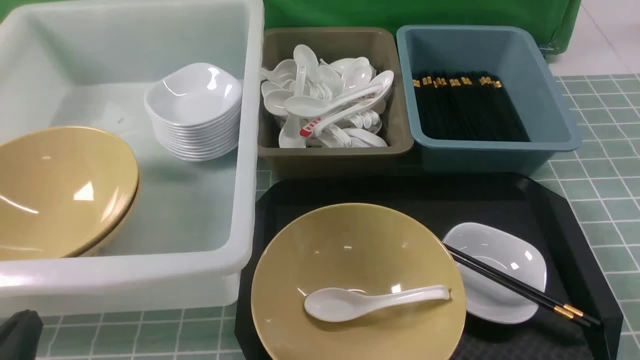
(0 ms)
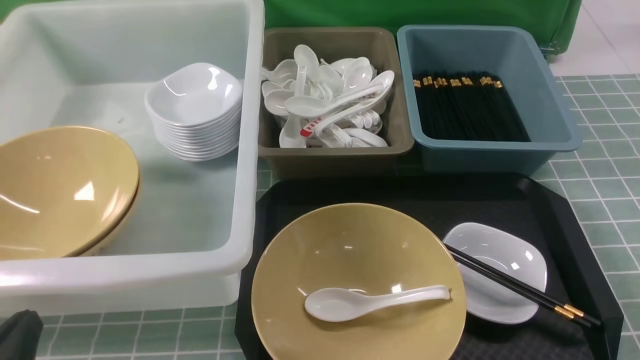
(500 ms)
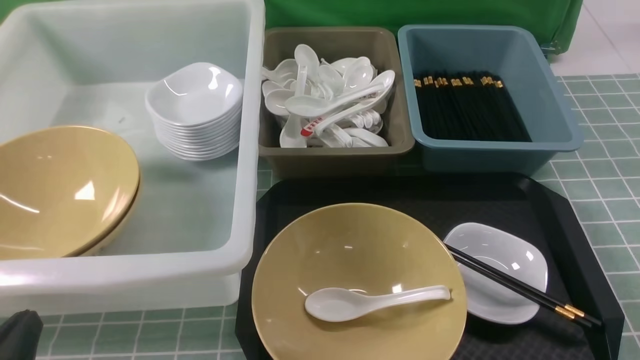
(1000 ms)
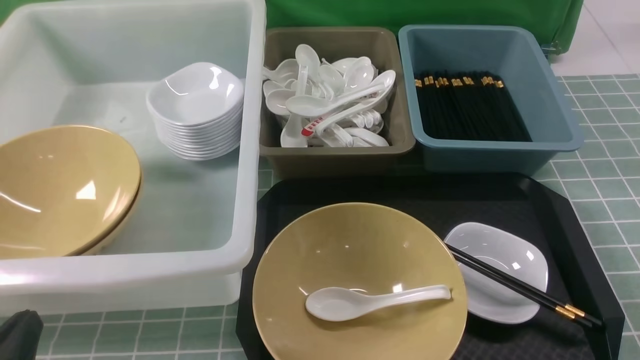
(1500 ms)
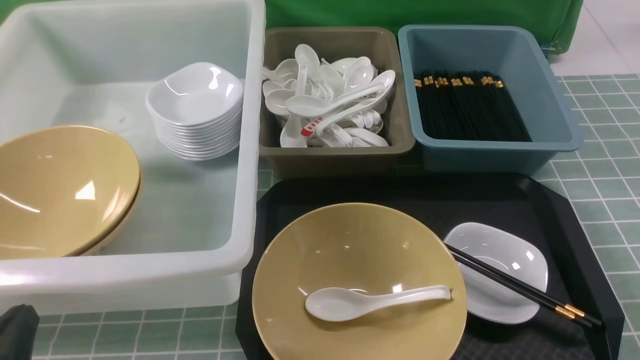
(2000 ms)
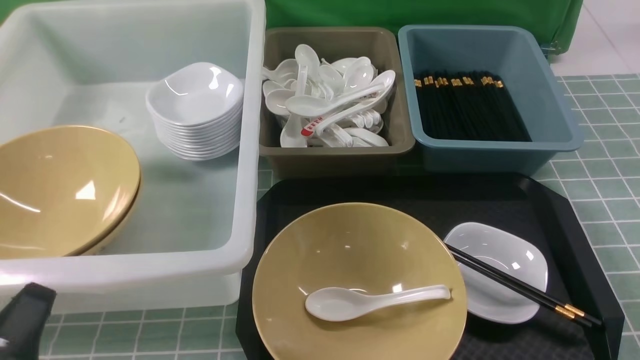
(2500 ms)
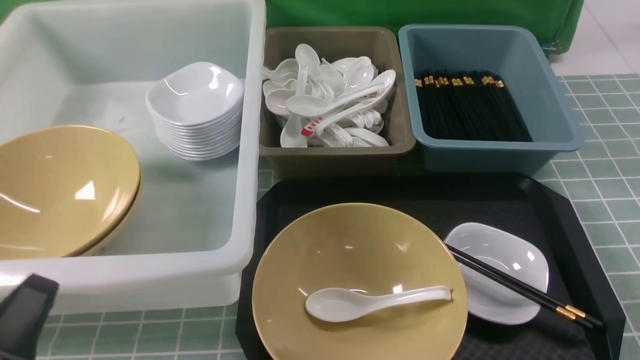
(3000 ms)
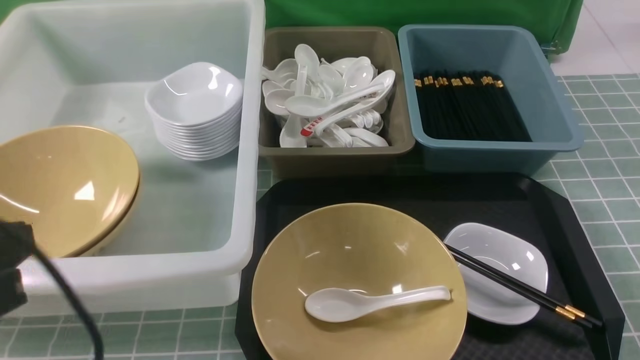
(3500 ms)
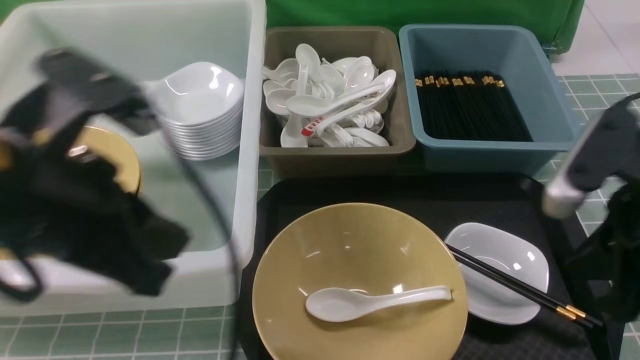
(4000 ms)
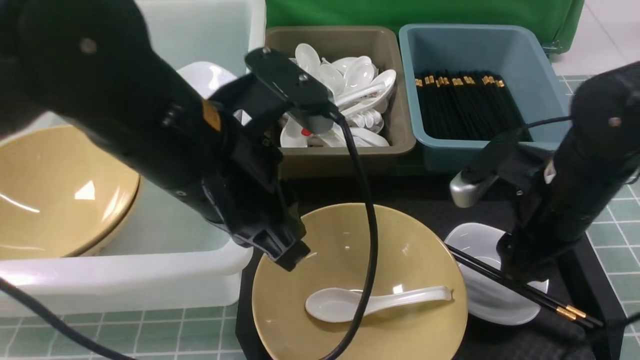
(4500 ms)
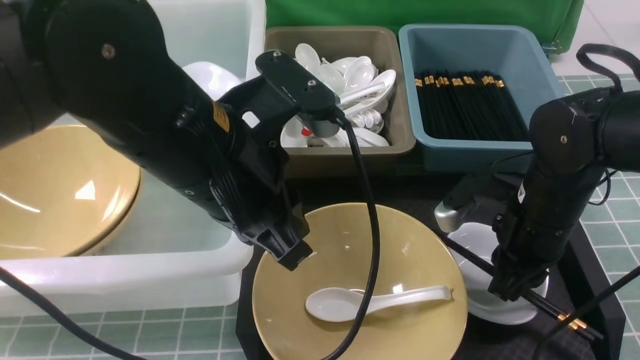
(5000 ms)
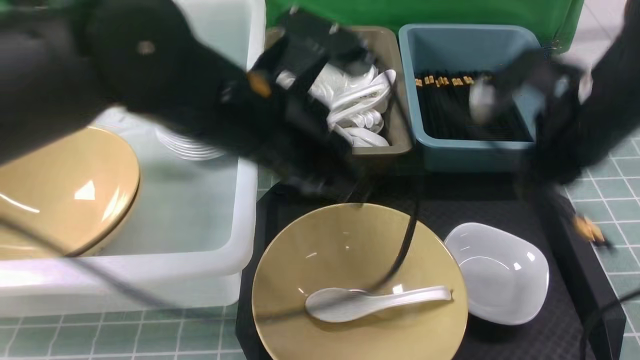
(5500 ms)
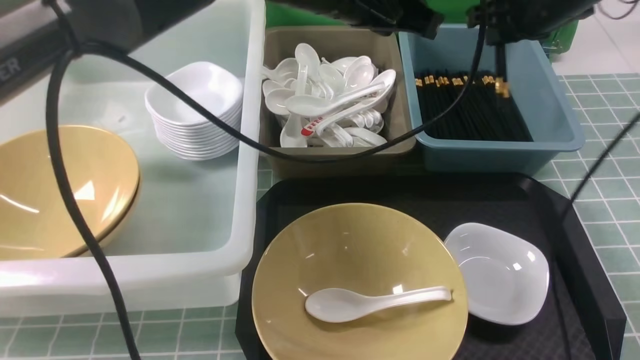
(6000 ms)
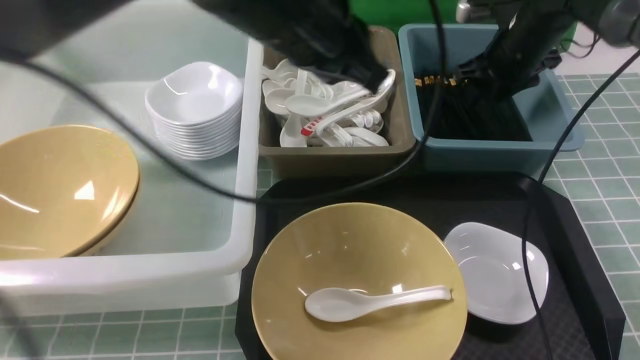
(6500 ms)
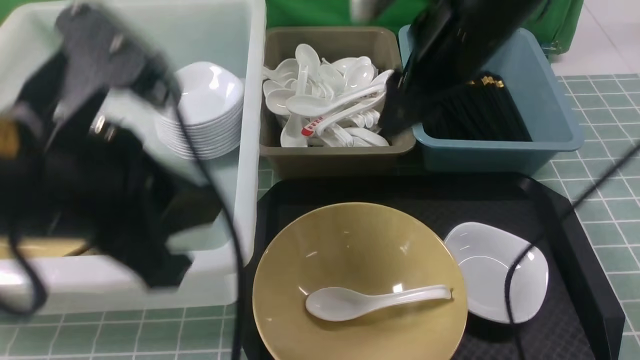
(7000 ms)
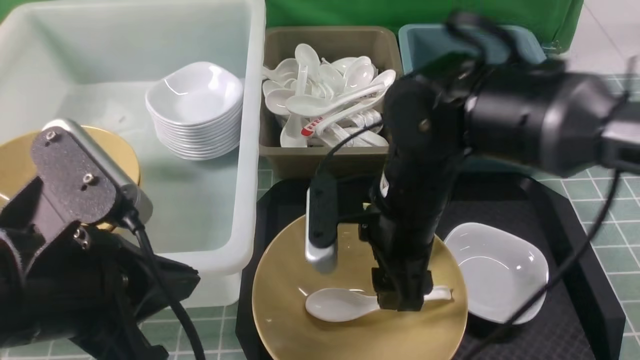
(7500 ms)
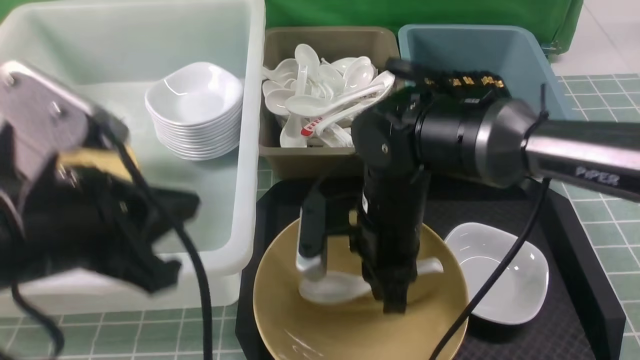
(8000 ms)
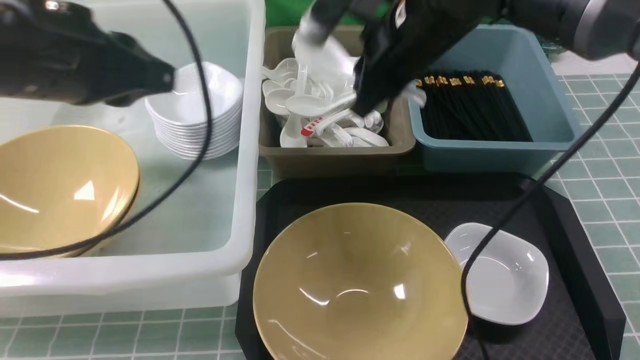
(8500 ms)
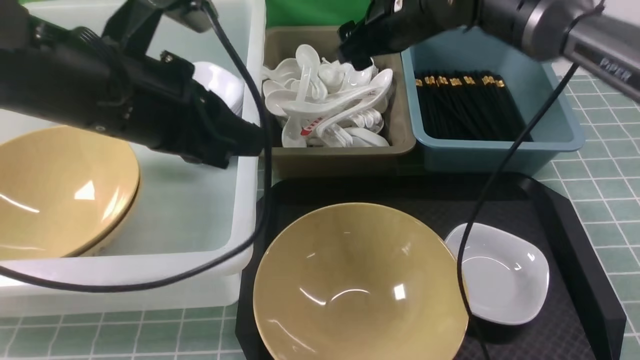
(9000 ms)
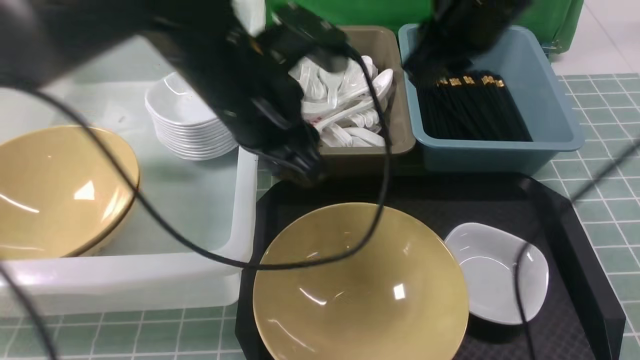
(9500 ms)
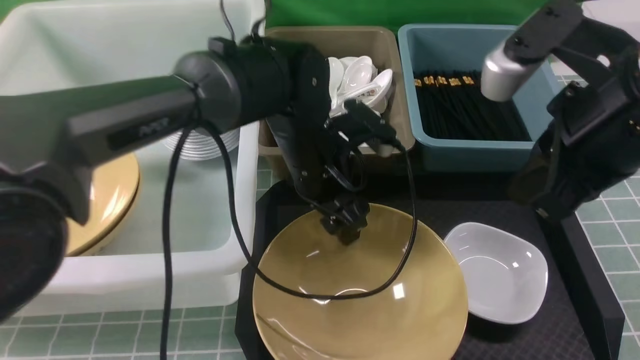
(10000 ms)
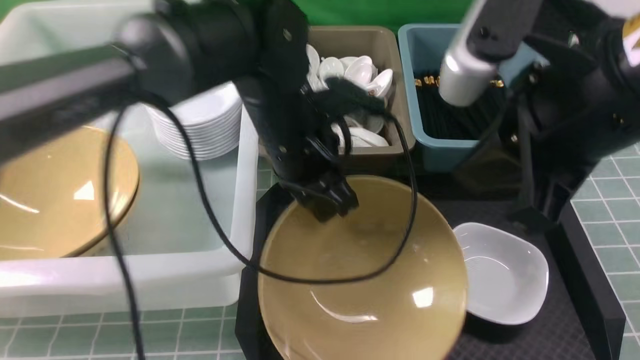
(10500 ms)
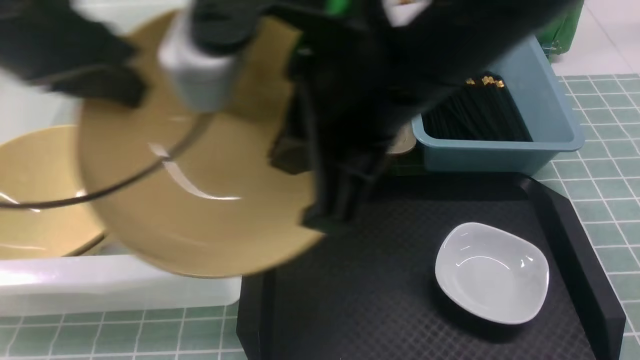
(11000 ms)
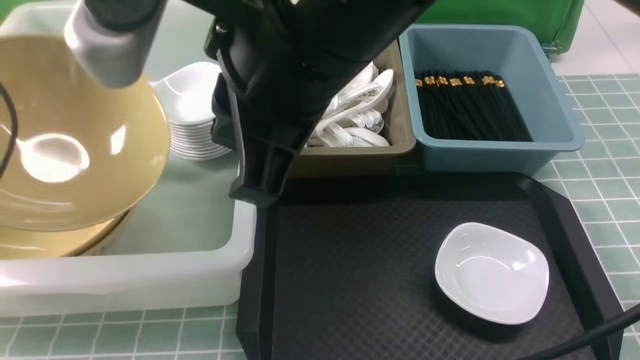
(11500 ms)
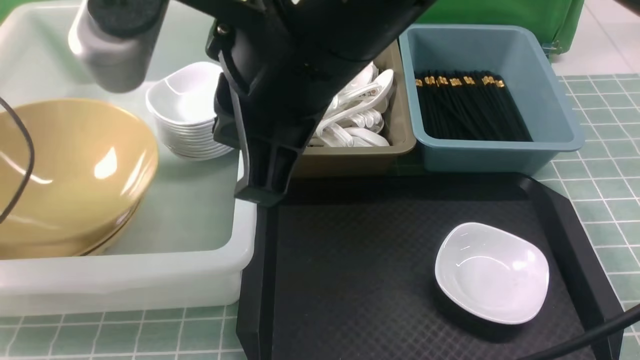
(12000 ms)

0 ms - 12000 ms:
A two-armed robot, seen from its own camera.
Task of the whole recording: on blue table put chopsticks spoon bowls plates into blue grey white boxes.
Step, 0 ms - 5000 ms: use the right arm to grab the chopsticks.
Step, 5500 ms - 6500 ms: use the right arm to put the chopsticks into the small storage box on the right.
Step, 7000 ms - 8000 ms: use the right arm to grab the soup spoon in the middle.
Step, 8500 ms - 9000 ms: use the right arm to put the soup spoon into the small storage box in the middle.
Step, 9500 ms - 10000 ms: use the left arm to grab the yellow noodle bowl on the left.
0 ms - 2000 ms: Neither gripper changes place.
2000 ms - 4000 ms: The left gripper moves upward, forward and to the right, about 25 cm. The right gripper heads forward, upward and to the left, covering some 20 cm.
4000 ms - 6000 ms: The left gripper moves forward and to the right, about 25 cm; the right gripper heads forward, covering some 25 cm, and opens, then closes once more.
6000 ms - 8000 ms: The left gripper shifts about 25 cm backward and to the left. Meanwhile the right gripper travels to the left, backward and downward by roughly 25 cm, and opens and closes again.
8000 ms - 10000 ms: The left gripper travels forward, to the right and downward by roughly 25 cm, and opens up; the right gripper moves upward and to the right, roughly 20 cm, moves roughly 15 cm forward and comes back, and closes its fingers.
10000 ms - 12000 ms: The right gripper is displaced to the left by approximately 20 cm. Meanwhile the left gripper heads to the left, covering about 40 cm, and closes and opens again.

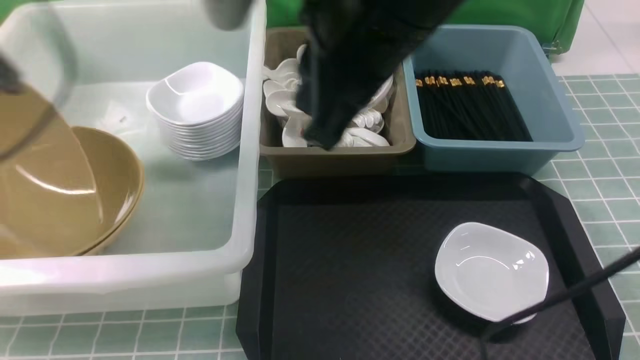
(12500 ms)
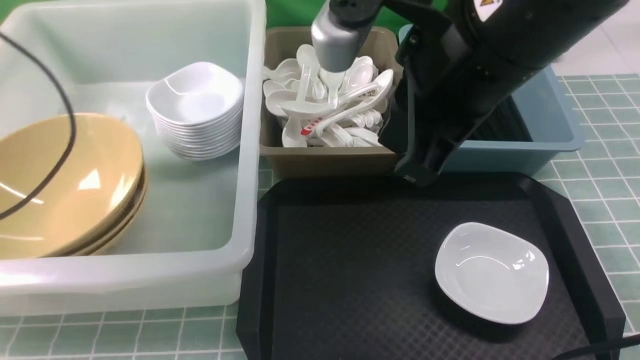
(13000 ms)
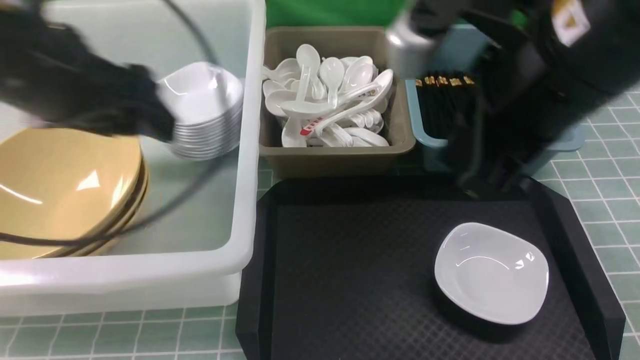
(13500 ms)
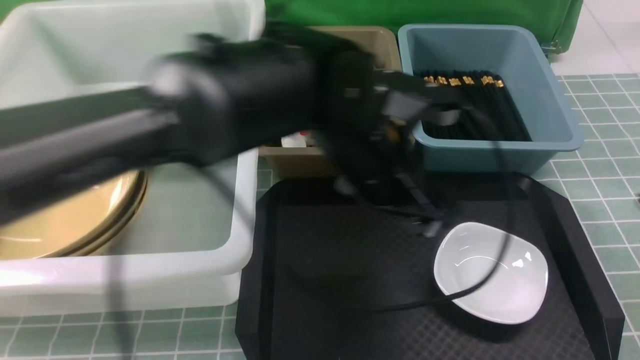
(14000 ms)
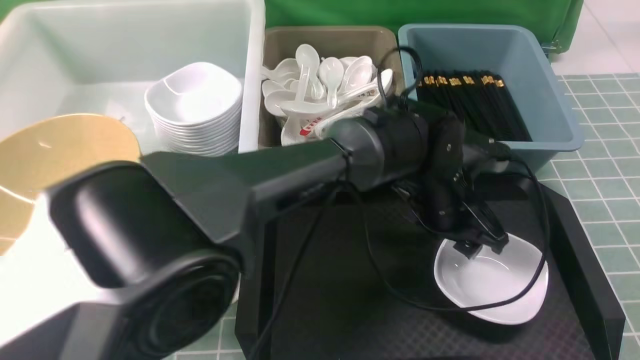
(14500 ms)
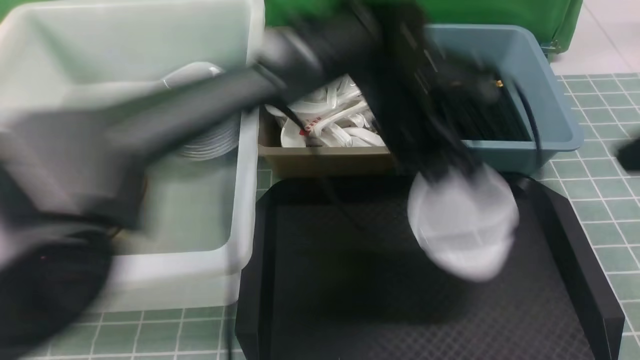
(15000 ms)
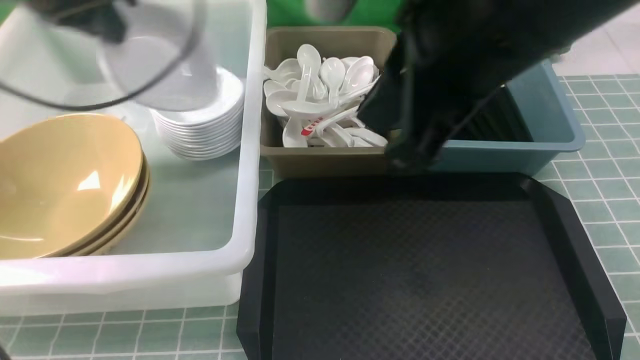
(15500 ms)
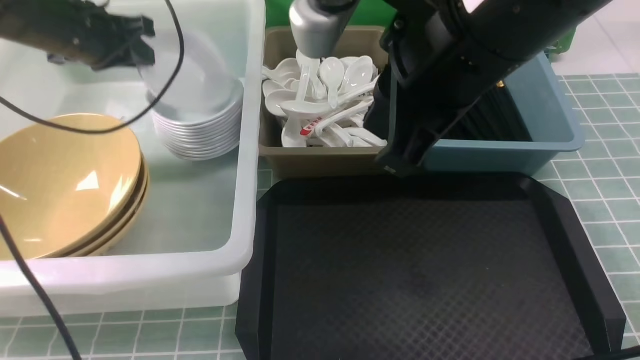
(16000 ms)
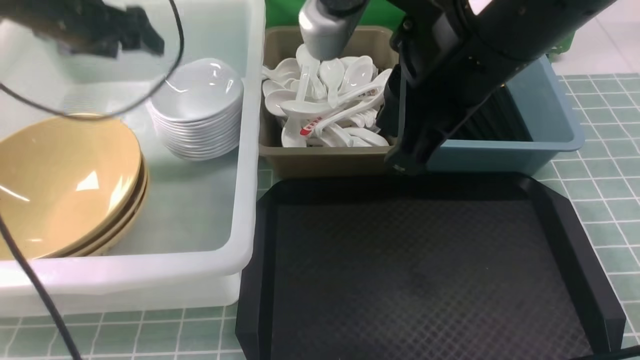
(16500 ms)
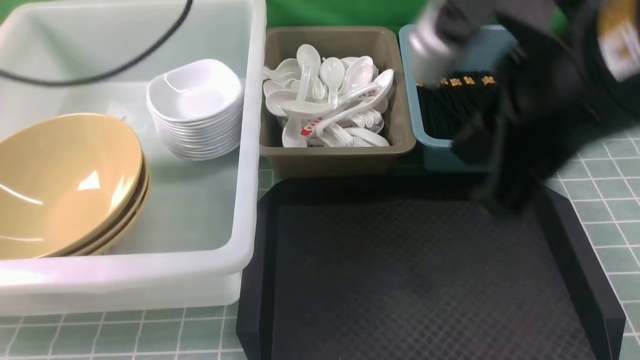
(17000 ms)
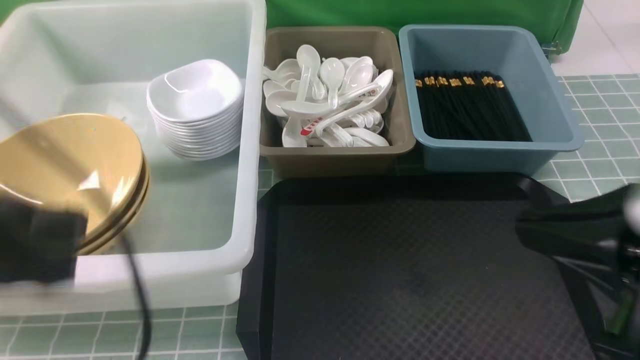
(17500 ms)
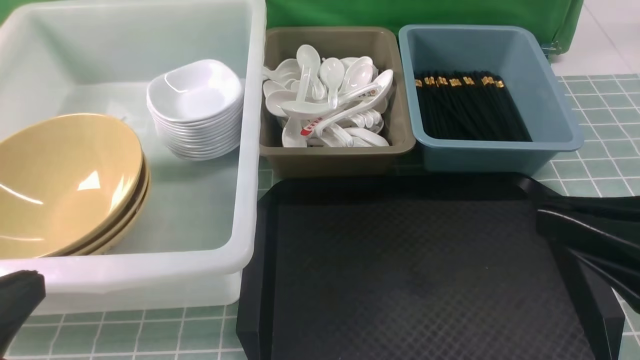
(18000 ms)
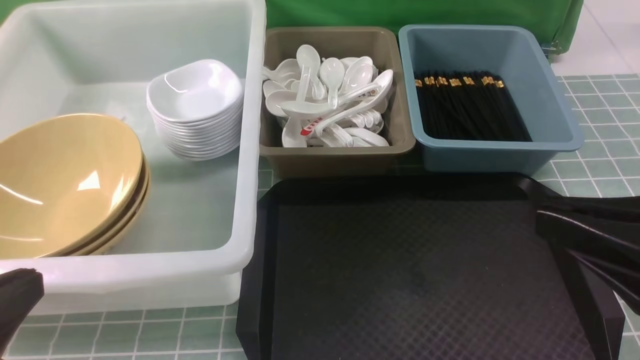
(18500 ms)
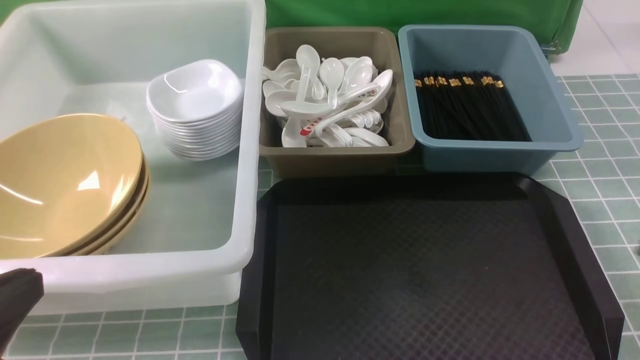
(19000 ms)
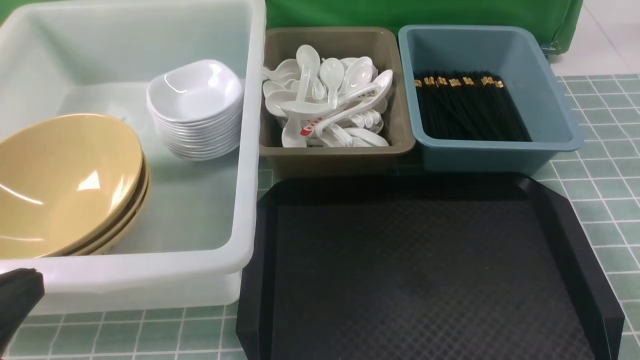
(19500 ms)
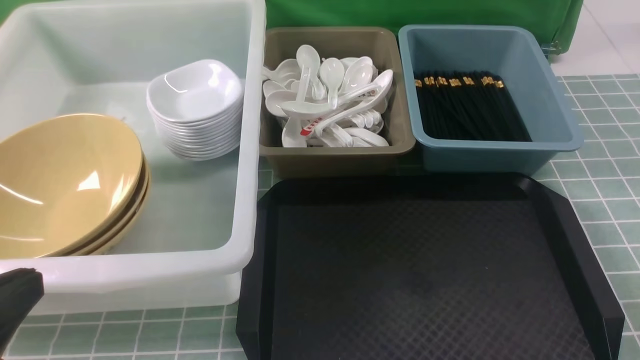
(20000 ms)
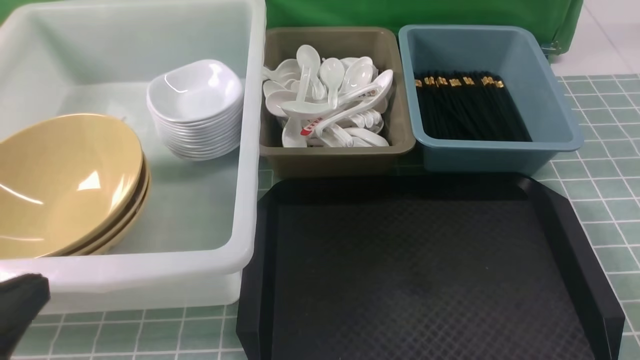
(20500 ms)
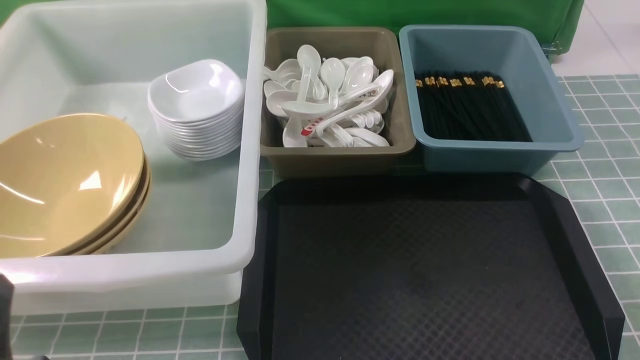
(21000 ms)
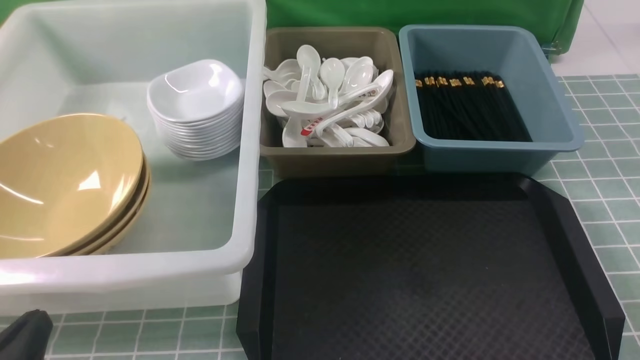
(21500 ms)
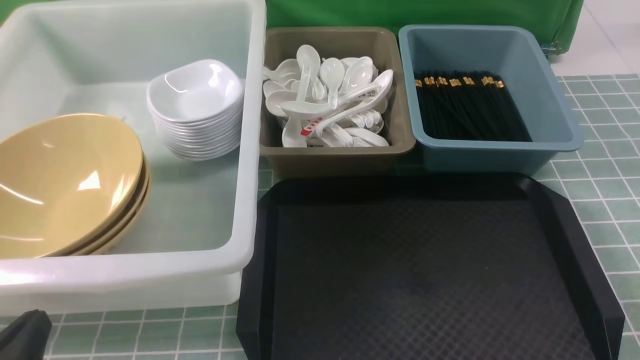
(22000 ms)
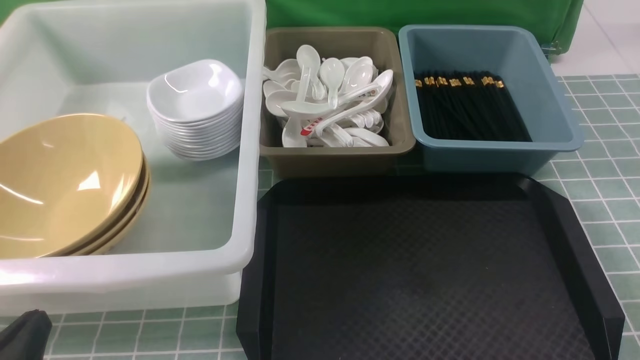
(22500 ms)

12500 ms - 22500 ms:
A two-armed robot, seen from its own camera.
Task of the whole recording: on blue table put chopsticks spoon bowls plates into blue grey white boxes.
Step, 13500 ms - 15000 ms: use the left arm to grab the plate.
Step, 15500 ms - 16500 ms: use the left arm to put the plate into the large storage box on the left.
12500 ms - 14500 ms: The right gripper moves to the right and backward, about 25 cm, while the left gripper shifts approximately 50 cm to the right and downward, and closes.
14500 ms - 16500 ms: The left gripper goes some 40 cm to the left, and opens its fingers. The right gripper travels to the left and forward by about 20 cm.
16500 ms - 18500 ms: The right gripper goes roughly 20 cm backward, to the right and downward; the left gripper heads backward, covering about 40 cm, and closes.
18500 ms - 20500 ms: The right gripper shifts approximately 20 cm downward and to the right.
20500 ms - 22500 ms: The left gripper heads downward, covering some 10 cm.
